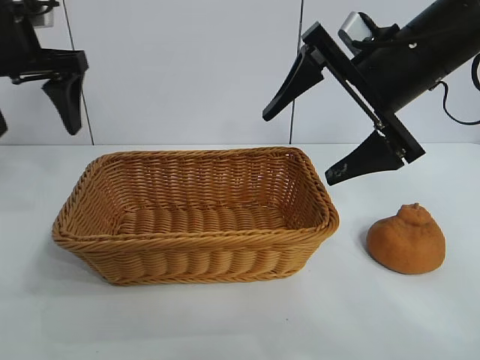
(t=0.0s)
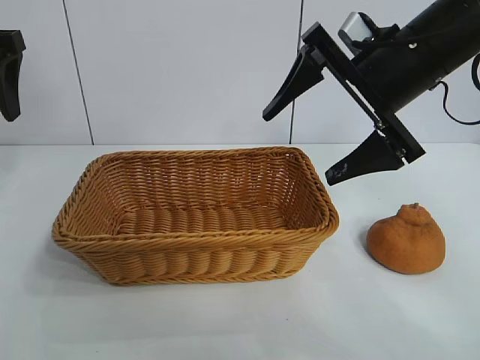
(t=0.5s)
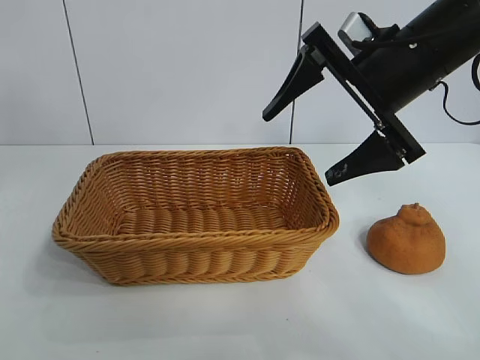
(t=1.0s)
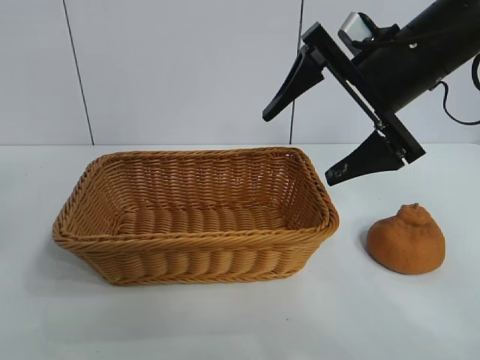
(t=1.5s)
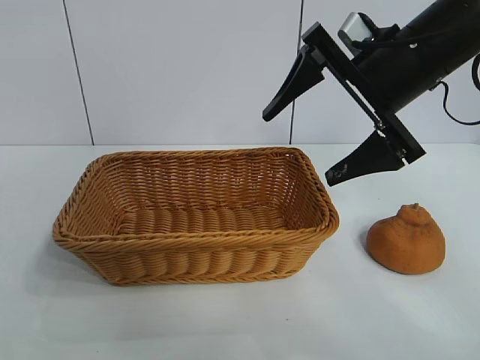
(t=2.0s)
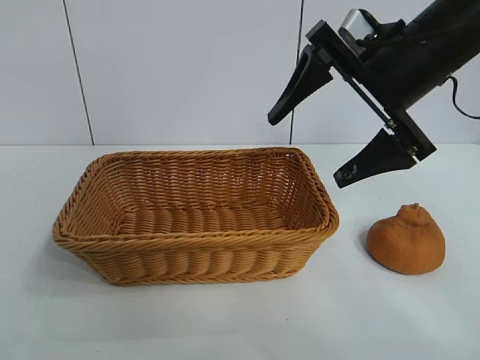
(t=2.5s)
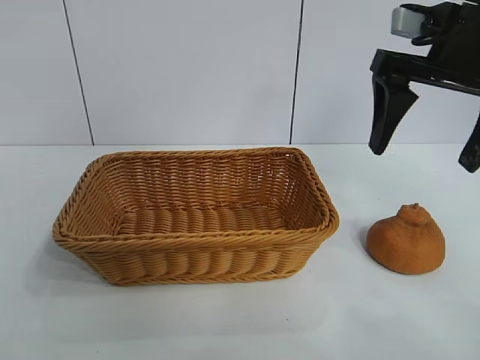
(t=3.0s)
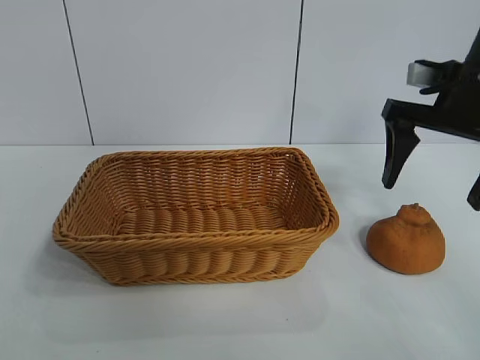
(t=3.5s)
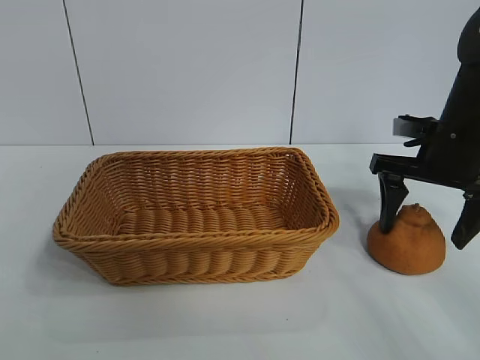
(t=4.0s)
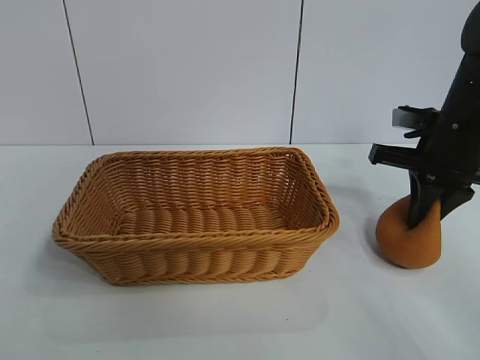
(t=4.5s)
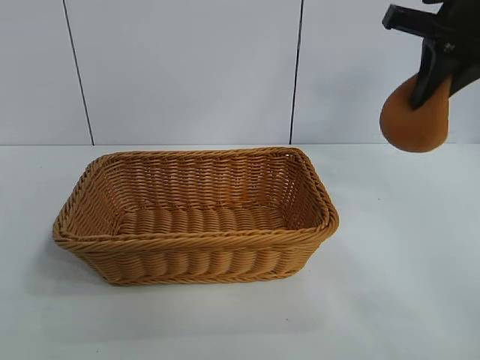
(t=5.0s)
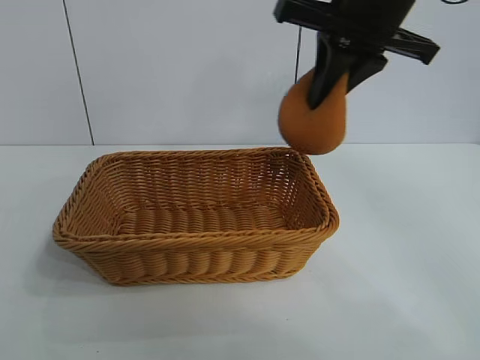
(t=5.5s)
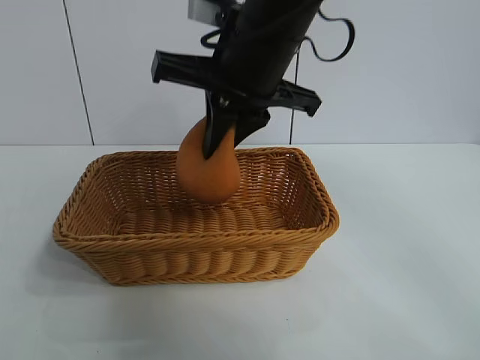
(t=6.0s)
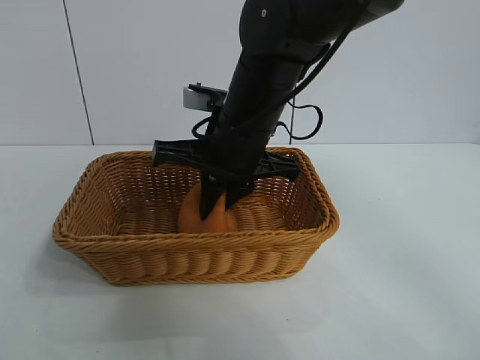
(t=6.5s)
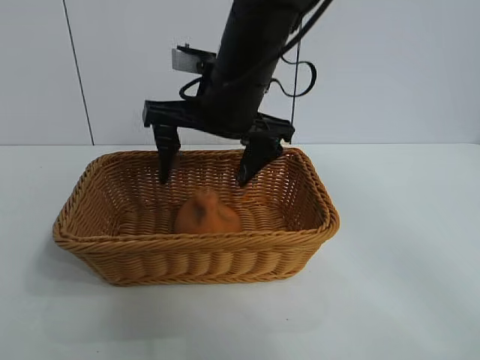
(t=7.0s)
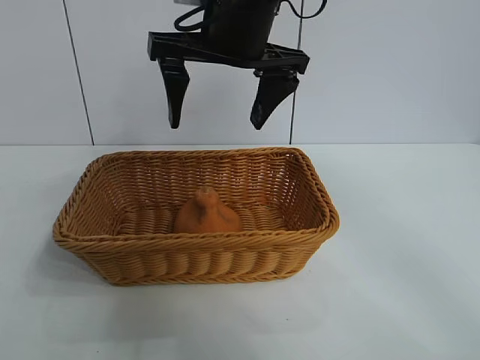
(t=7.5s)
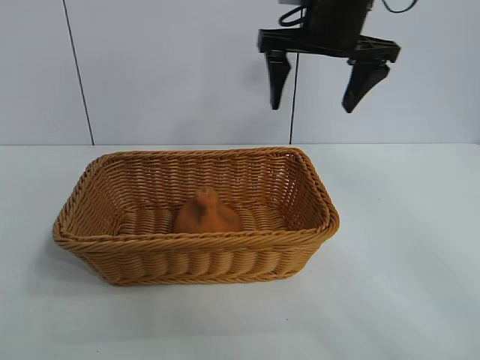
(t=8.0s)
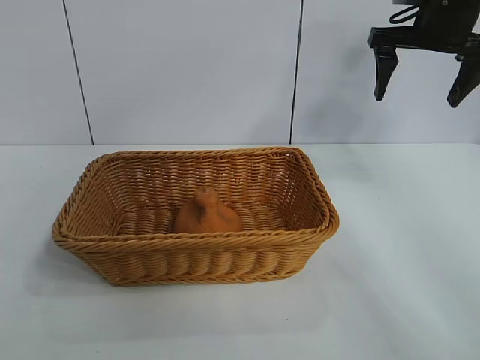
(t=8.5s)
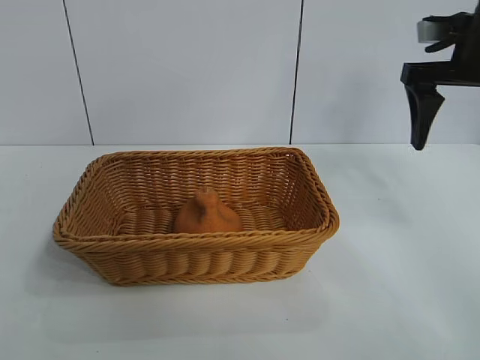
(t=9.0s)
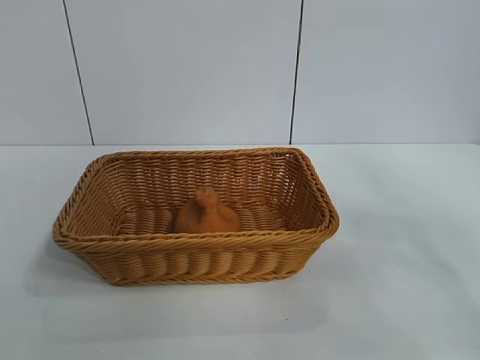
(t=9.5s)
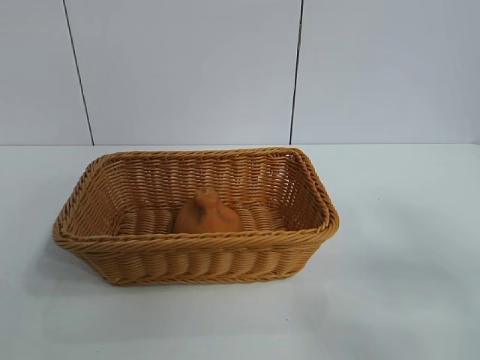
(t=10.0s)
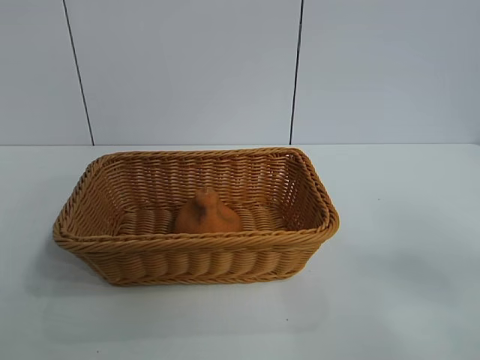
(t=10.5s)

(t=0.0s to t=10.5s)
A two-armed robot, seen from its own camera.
Task of the whole recording: pick up the orange and put it into the basket.
Step, t=0.0s - t=4.5s: Grasp the orange with right gripper.
Step, t=5.0s - t=6.5s: Place the orange in the basket with right gripper.
